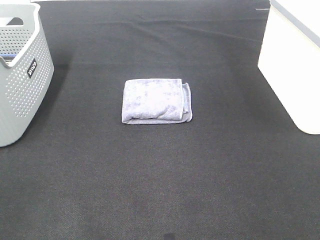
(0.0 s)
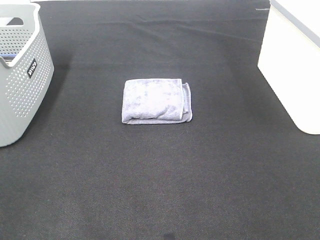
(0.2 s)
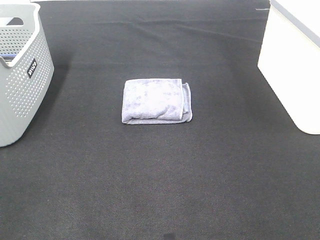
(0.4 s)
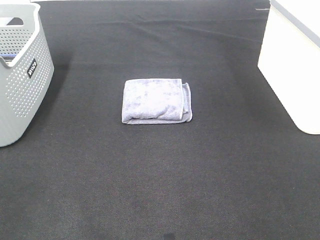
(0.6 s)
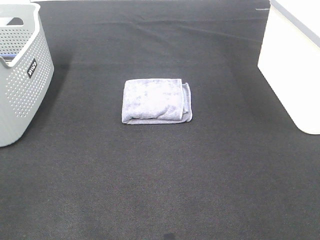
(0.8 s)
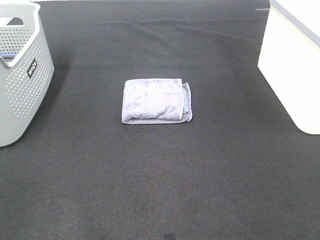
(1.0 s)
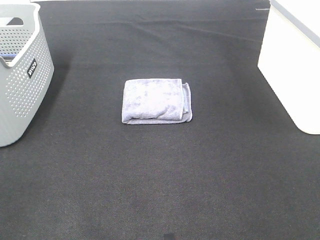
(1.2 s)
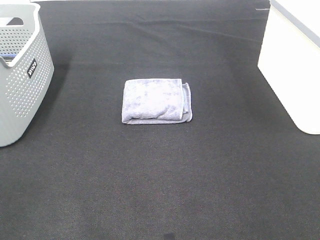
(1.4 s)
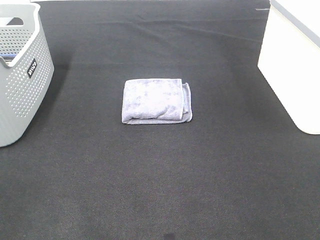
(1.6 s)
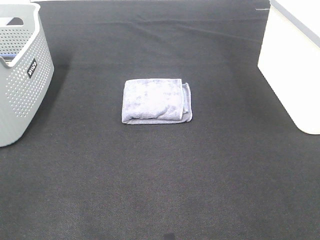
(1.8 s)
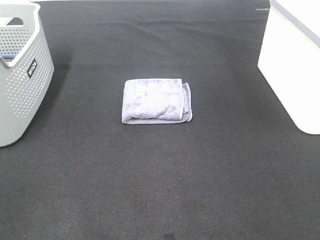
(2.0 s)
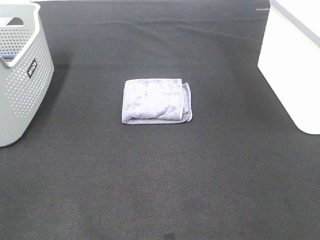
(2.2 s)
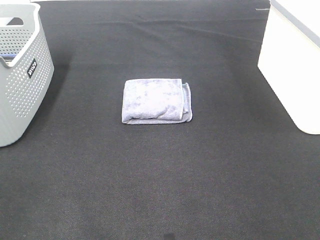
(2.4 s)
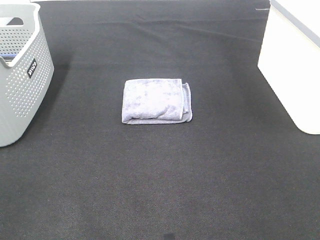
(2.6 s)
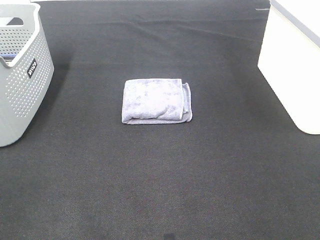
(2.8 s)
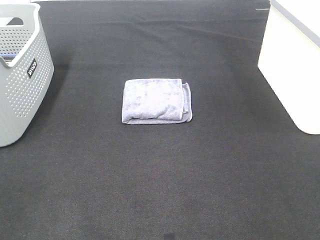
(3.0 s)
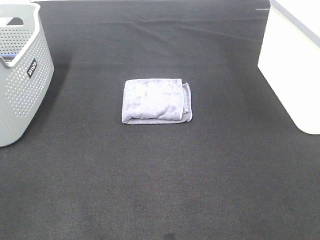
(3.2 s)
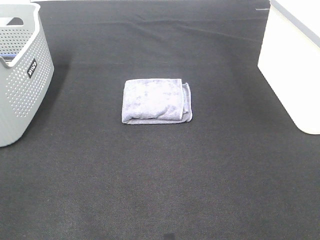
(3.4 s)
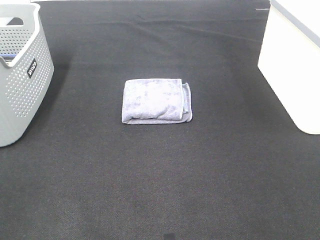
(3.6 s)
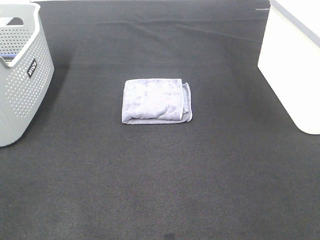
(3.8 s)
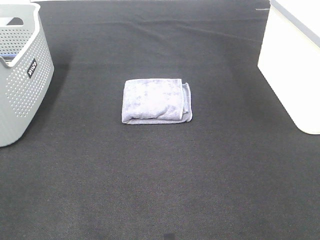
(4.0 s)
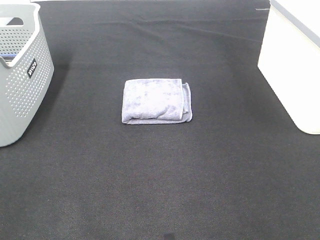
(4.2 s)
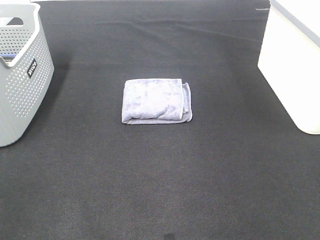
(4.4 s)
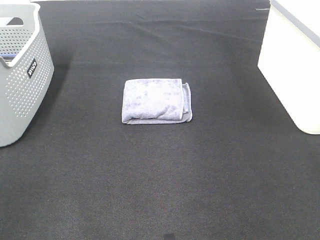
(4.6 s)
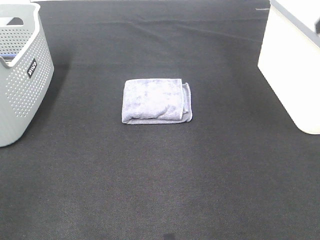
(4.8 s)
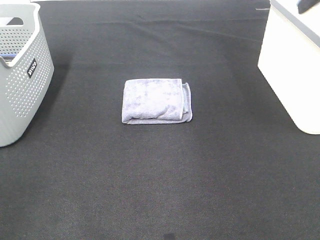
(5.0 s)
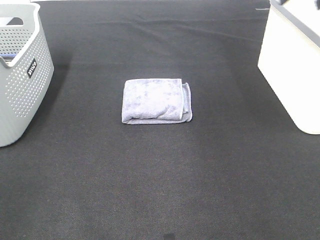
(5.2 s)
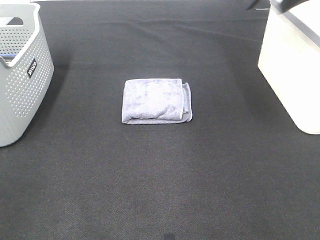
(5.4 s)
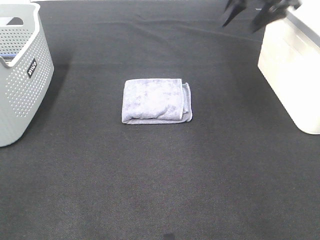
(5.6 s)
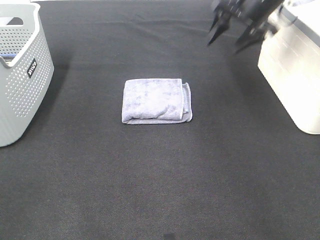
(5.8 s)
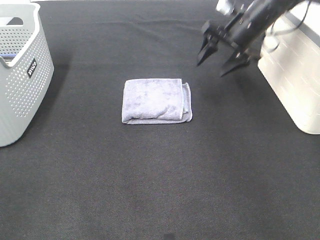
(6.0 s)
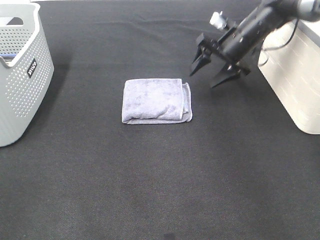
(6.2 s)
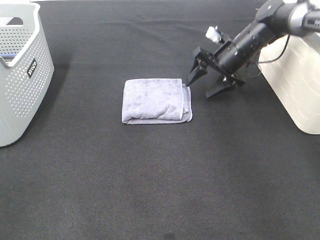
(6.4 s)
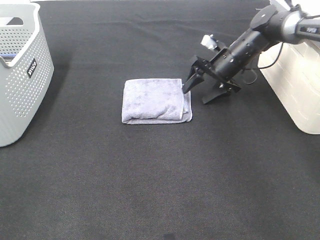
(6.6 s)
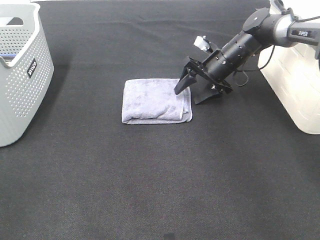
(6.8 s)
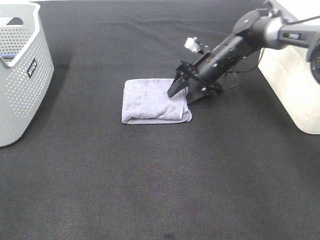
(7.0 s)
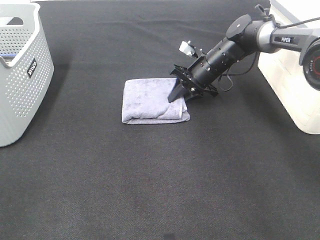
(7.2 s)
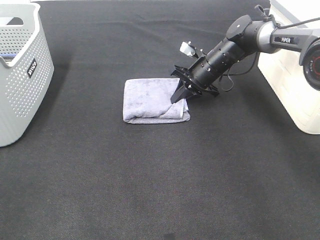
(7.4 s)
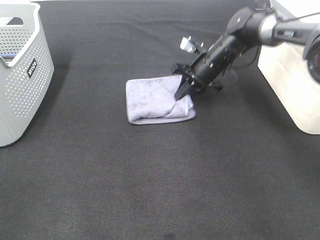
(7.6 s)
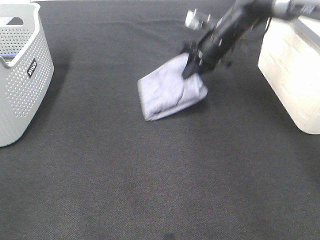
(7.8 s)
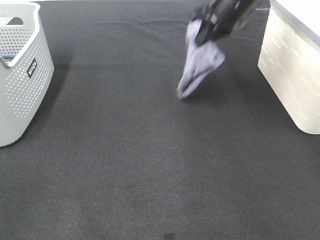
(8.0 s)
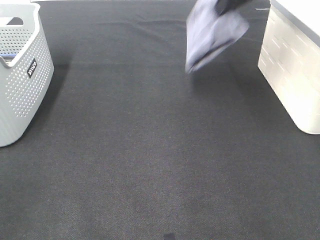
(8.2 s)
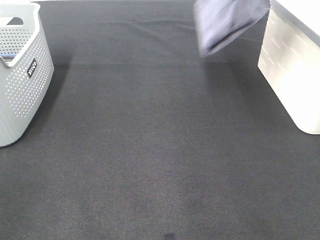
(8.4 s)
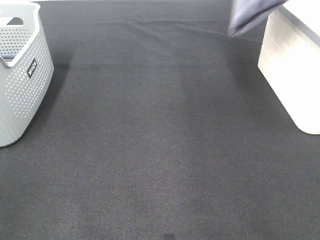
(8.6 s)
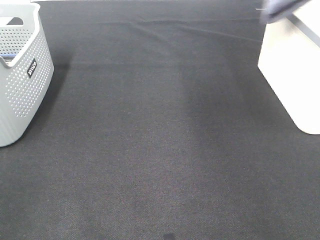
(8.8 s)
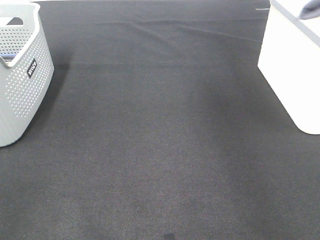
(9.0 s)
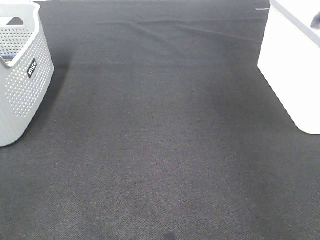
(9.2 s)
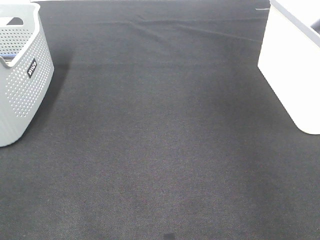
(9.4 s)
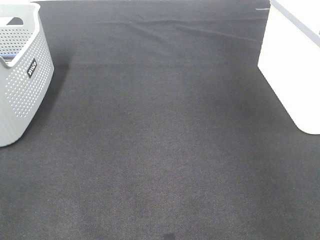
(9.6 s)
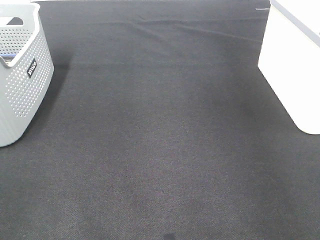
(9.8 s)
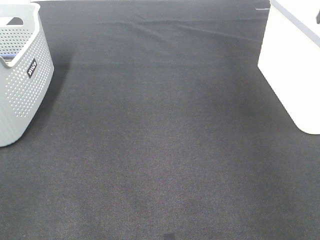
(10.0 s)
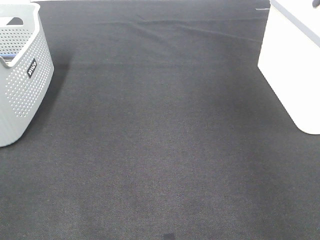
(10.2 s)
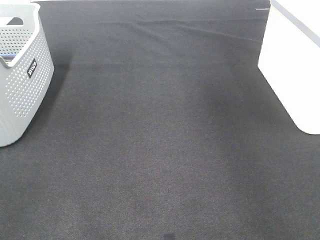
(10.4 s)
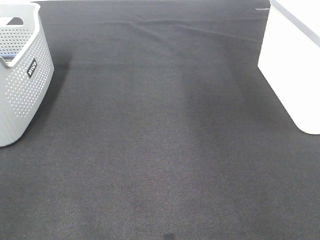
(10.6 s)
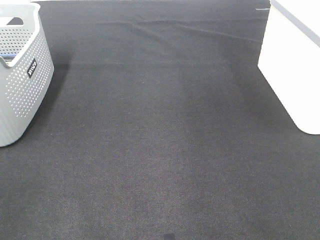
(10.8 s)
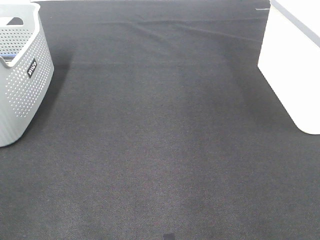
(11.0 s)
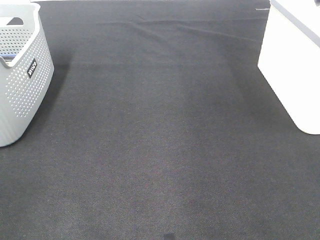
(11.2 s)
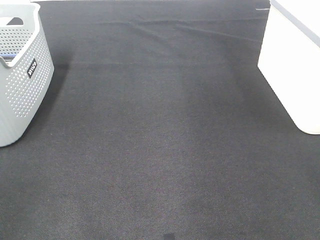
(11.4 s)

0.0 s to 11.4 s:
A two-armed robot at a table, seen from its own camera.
Step, 0.0 to 7.2 s: Right hand: grab the folded grey towel.
Step, 7.4 to 9.8 s: Right hand: place the grey towel in right basket.
0.0 to 2.8 s: Both grippers stay put.
4.2 to 5.6 s: The right gripper goes roughly 40 cm forward.
5.6 to 7.2 s: The right gripper is displaced downward and to the left by roughly 20 cm, and closes.
7.2 to 8.6 s: The right gripper goes roughly 30 cm upward.
8.6 to 10.0 s: The right gripper travels to the right and downward by roughly 15 cm, and opens up.

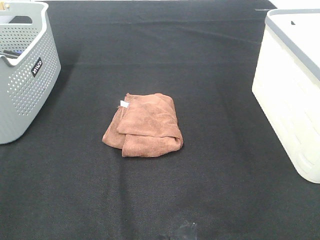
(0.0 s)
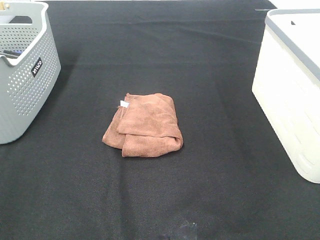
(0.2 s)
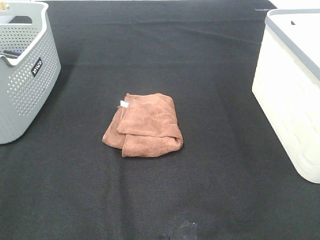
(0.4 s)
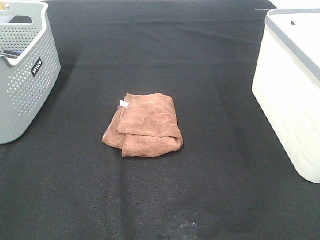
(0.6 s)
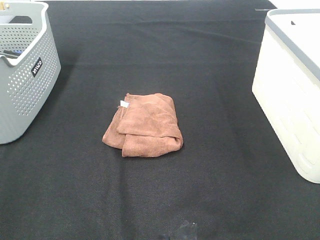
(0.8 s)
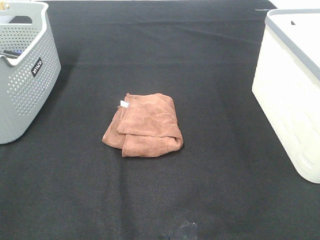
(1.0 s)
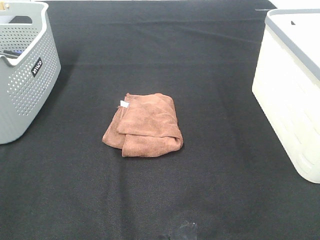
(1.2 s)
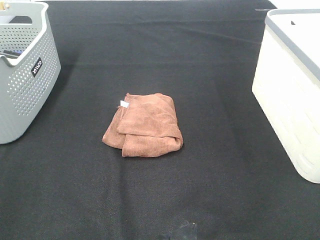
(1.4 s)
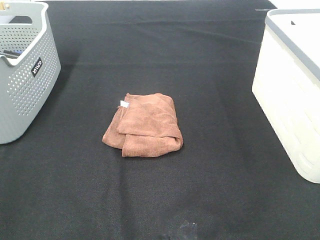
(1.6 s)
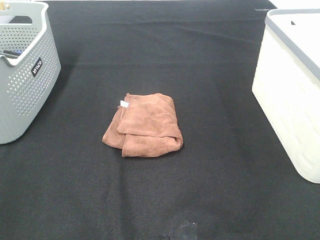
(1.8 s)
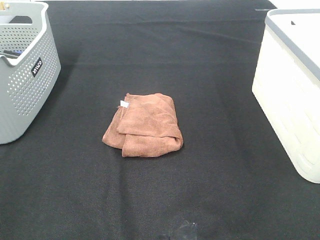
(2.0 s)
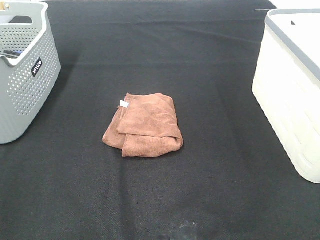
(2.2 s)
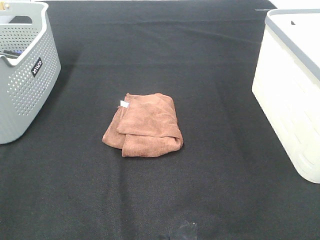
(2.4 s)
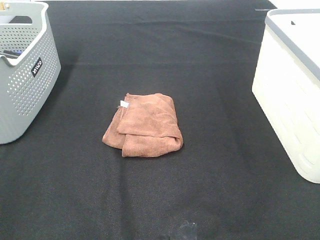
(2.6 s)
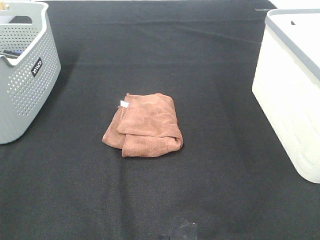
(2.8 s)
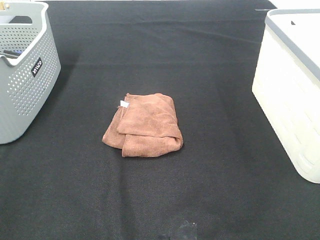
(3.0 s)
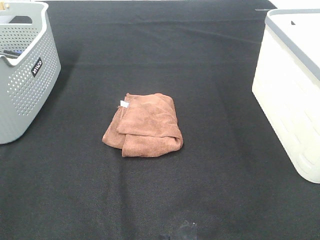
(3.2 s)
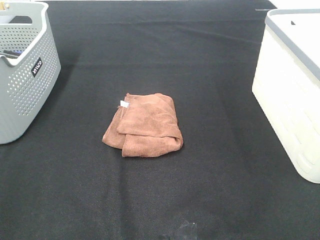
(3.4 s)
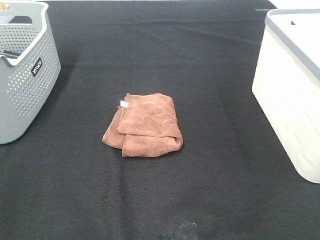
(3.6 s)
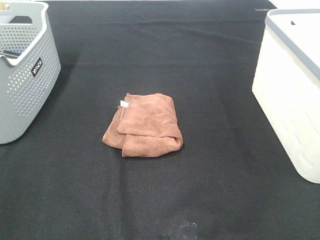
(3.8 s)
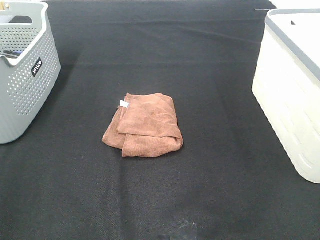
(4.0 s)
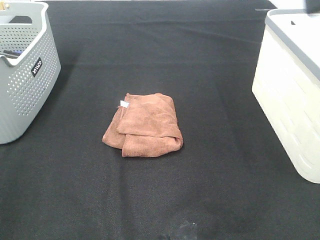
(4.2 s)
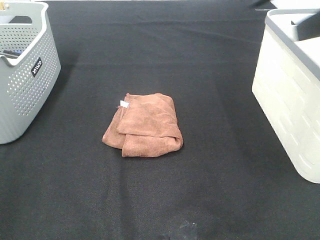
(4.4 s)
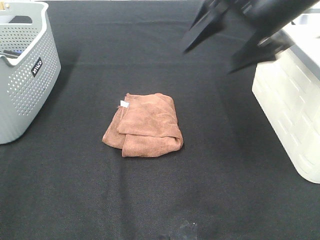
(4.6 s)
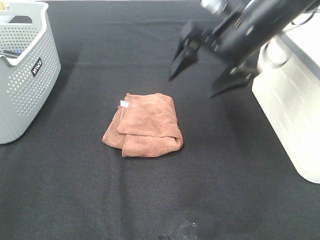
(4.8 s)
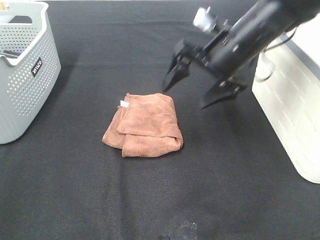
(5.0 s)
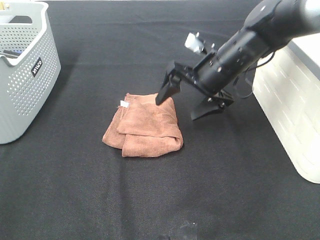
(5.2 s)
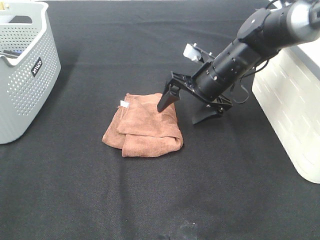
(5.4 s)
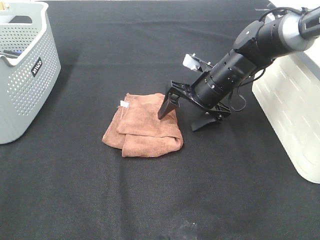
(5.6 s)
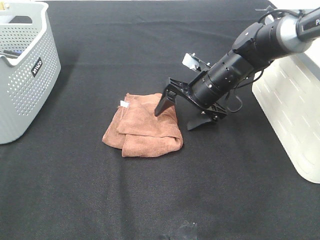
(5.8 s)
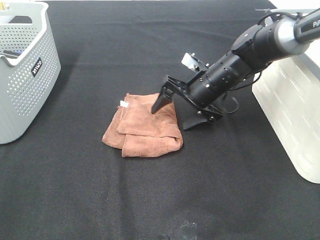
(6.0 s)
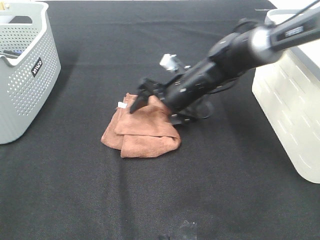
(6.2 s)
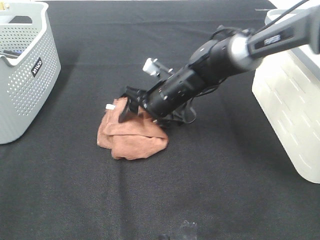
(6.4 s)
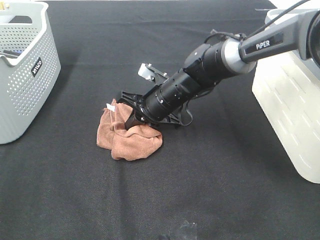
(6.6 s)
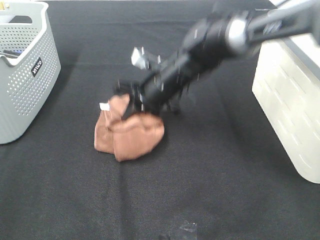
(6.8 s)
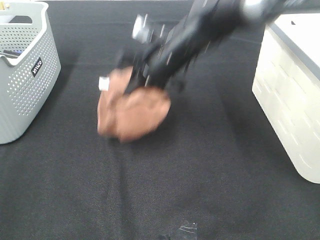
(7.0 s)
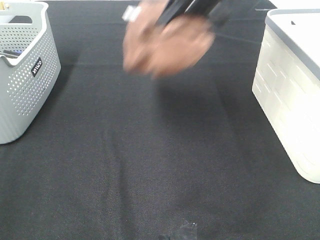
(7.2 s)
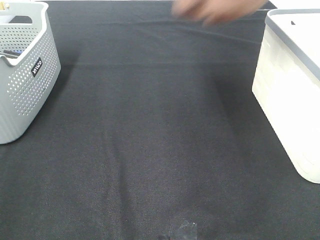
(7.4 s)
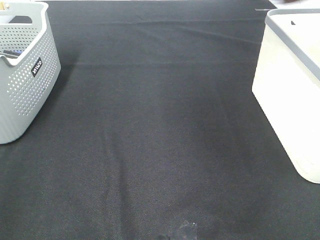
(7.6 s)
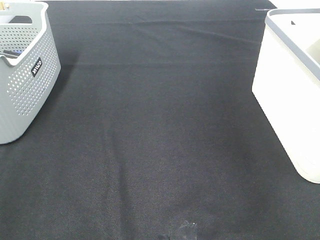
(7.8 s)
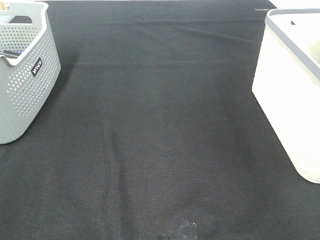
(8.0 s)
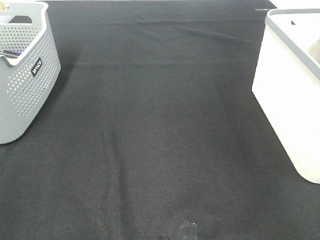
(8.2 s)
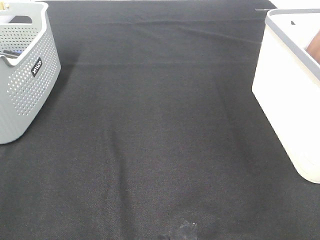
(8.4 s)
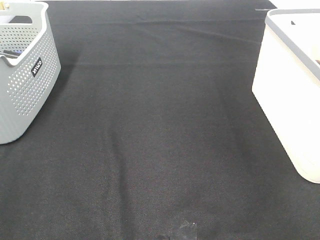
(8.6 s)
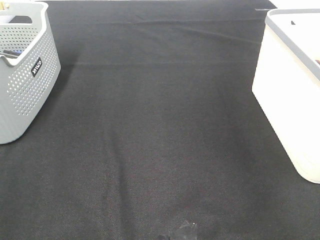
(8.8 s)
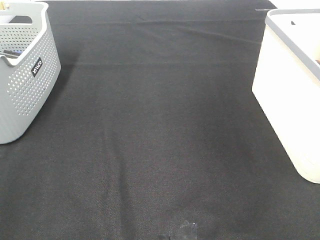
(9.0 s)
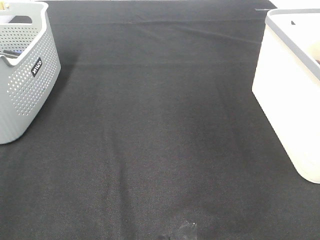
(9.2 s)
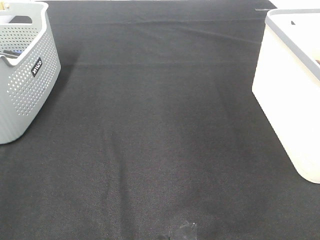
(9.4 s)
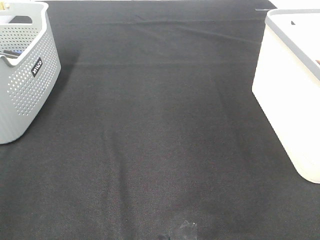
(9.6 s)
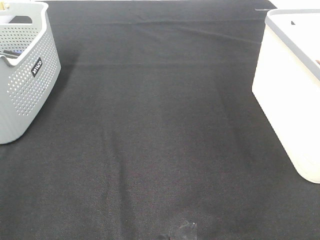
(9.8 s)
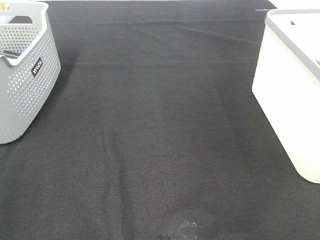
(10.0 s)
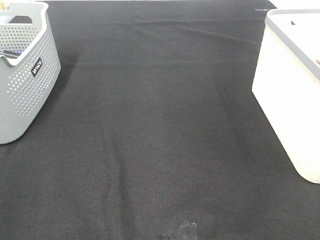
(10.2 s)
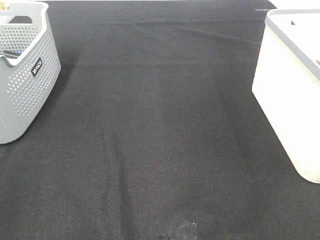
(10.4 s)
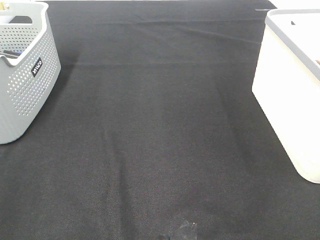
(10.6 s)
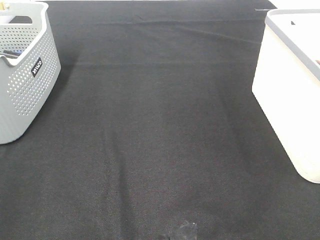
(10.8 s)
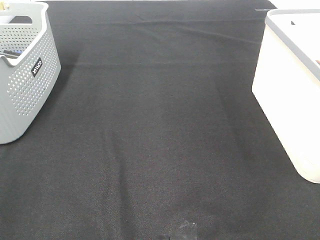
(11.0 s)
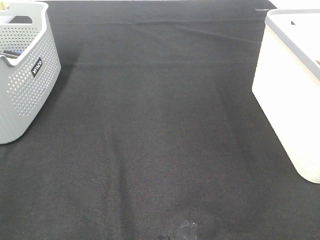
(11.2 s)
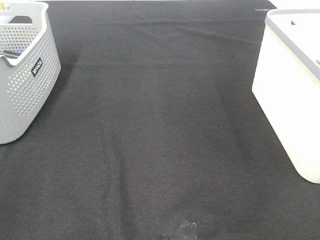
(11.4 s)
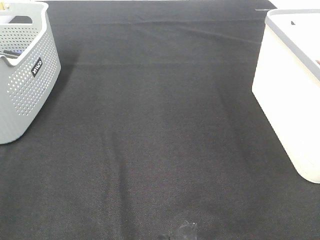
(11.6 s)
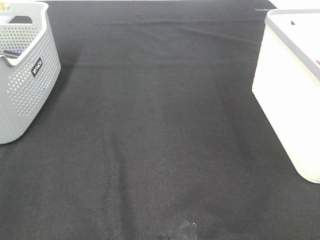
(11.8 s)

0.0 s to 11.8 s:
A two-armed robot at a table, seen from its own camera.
Step, 0.0 to 6.6 s: Right hand: grab the folded brown towel.
Step, 6.8 to 8.4 s: Right hand: place the brown towel in right basket.
0.0 to 3.0 s: Neither gripper changes place.
3.0 to 4.4 s: The right gripper moves forward, roughly 25 cm.
4.4 to 6.0 s: The right gripper moves downward and forward, about 30 cm.
6.0 to 7.4 s: The right gripper shifts some 30 cm upward, and closes up.
7.4 to 8.8 s: The right gripper moves to the right, approximately 15 cm, and opens up.
10.4 to 11.8 s: Both grippers stay put.
